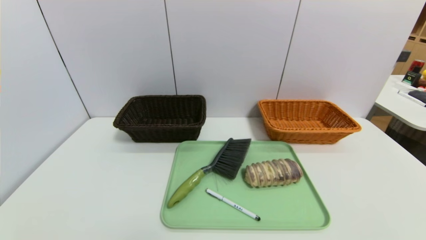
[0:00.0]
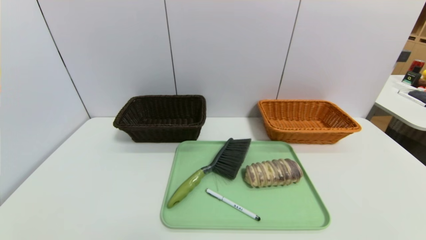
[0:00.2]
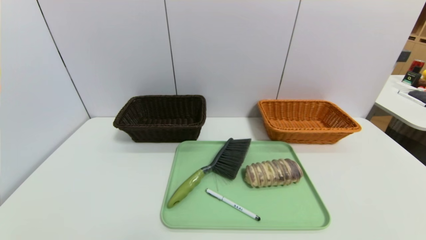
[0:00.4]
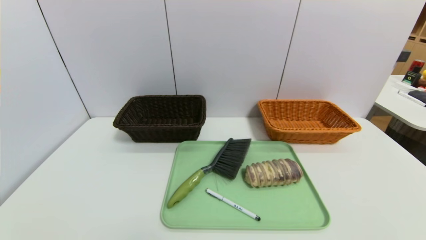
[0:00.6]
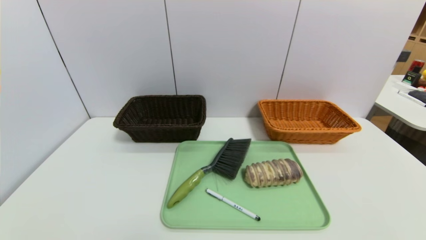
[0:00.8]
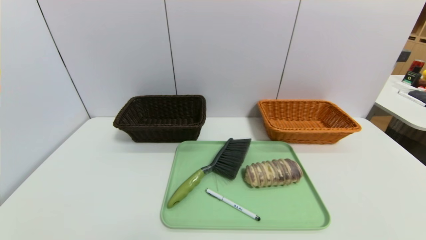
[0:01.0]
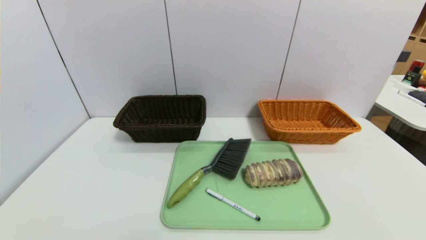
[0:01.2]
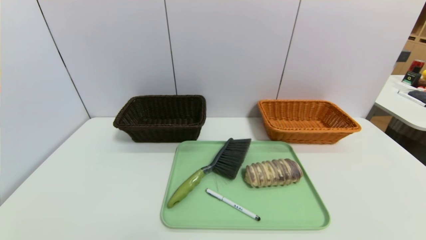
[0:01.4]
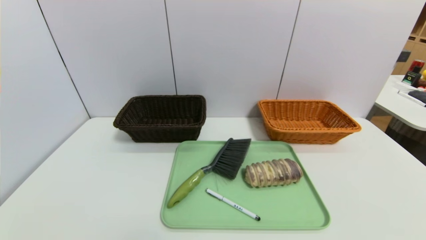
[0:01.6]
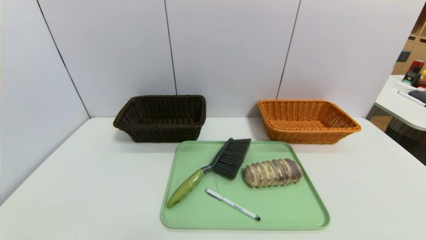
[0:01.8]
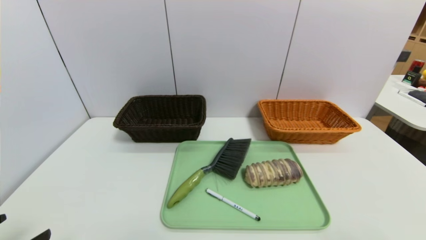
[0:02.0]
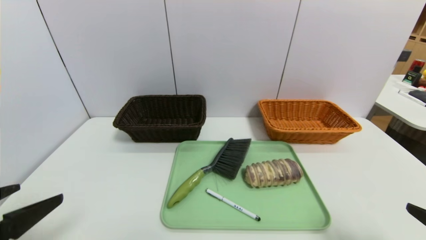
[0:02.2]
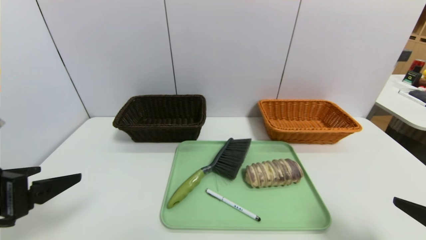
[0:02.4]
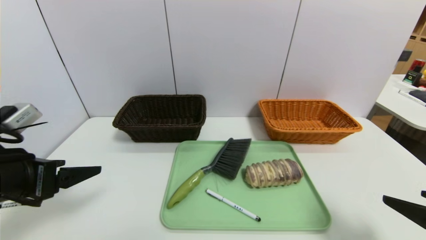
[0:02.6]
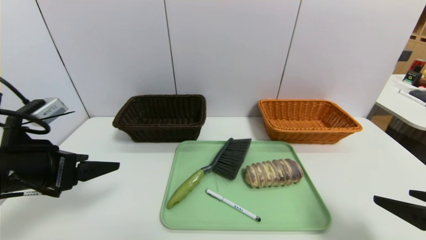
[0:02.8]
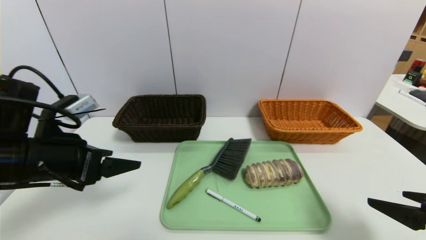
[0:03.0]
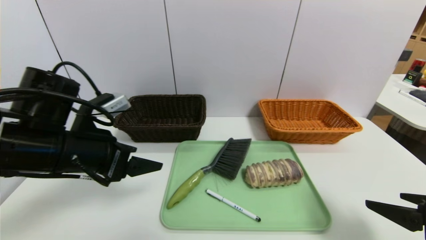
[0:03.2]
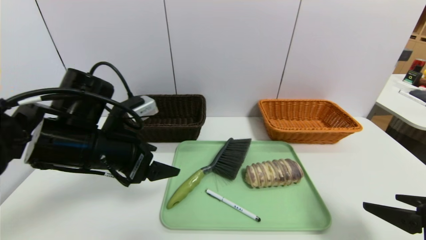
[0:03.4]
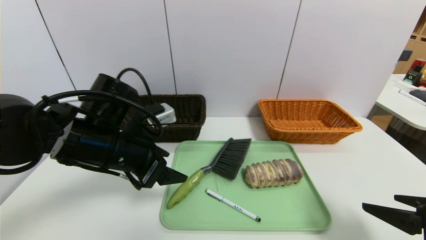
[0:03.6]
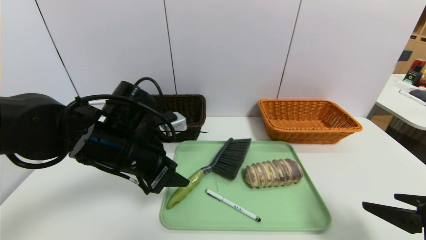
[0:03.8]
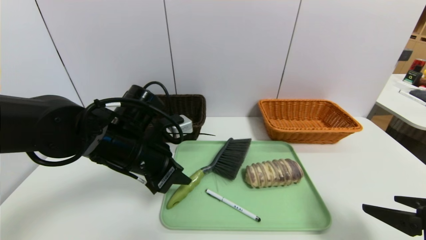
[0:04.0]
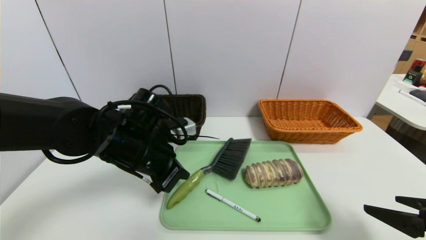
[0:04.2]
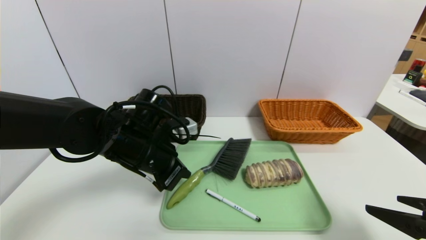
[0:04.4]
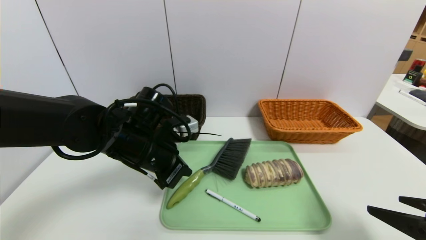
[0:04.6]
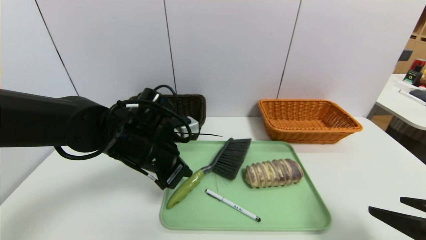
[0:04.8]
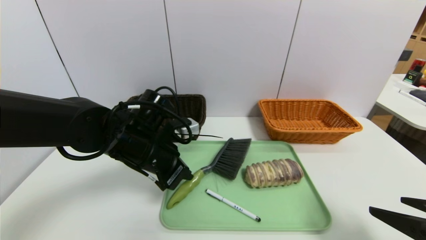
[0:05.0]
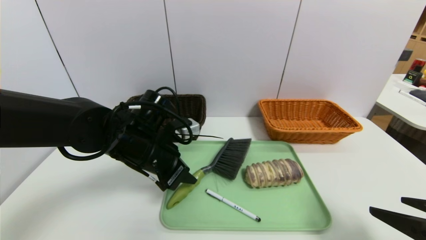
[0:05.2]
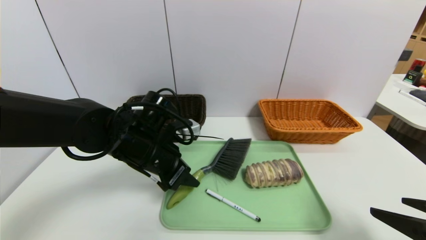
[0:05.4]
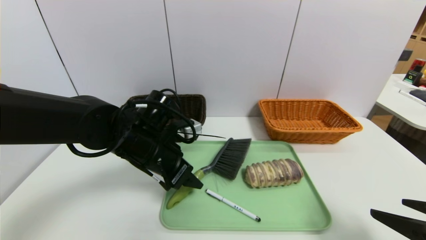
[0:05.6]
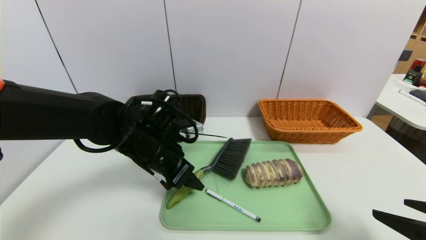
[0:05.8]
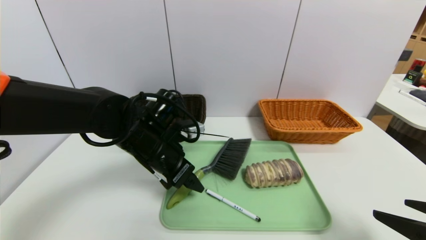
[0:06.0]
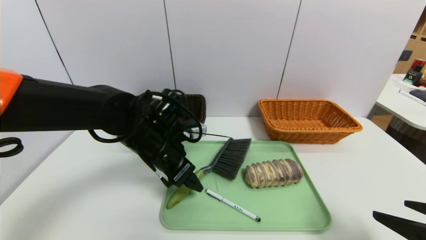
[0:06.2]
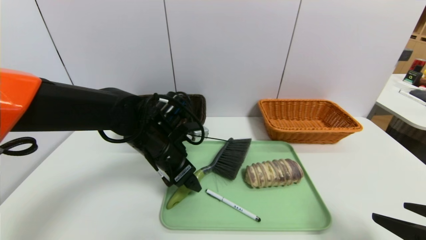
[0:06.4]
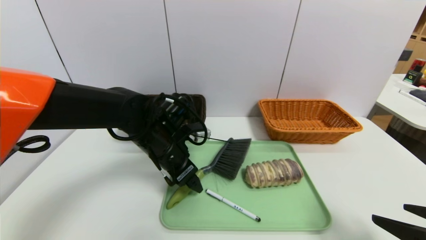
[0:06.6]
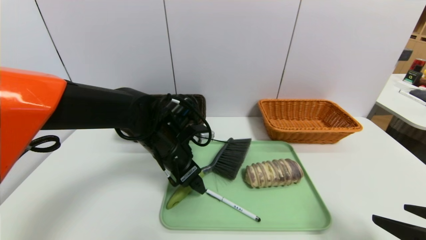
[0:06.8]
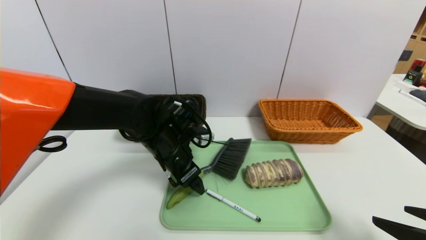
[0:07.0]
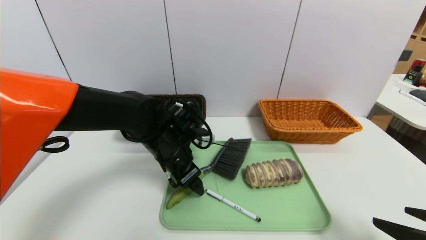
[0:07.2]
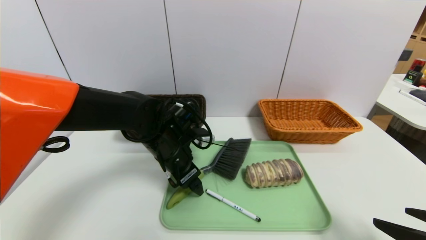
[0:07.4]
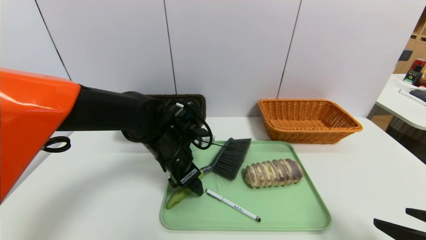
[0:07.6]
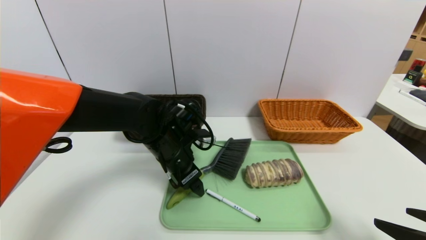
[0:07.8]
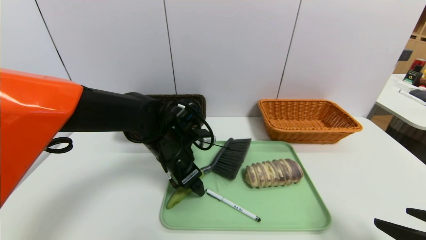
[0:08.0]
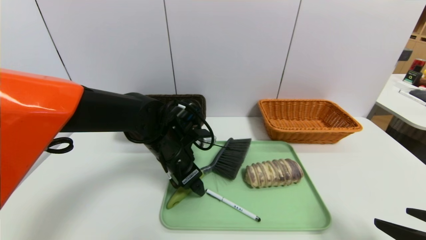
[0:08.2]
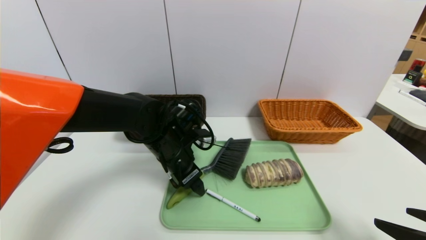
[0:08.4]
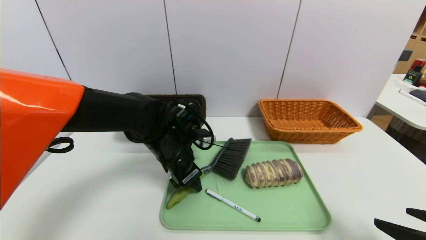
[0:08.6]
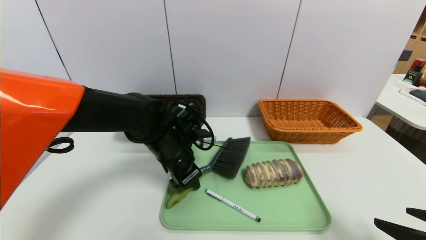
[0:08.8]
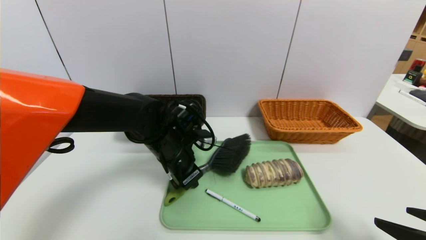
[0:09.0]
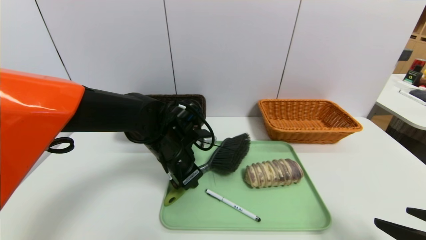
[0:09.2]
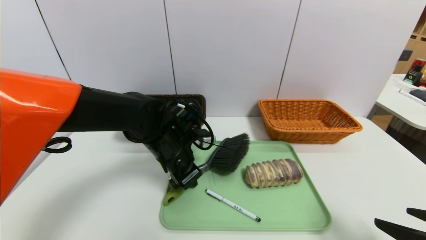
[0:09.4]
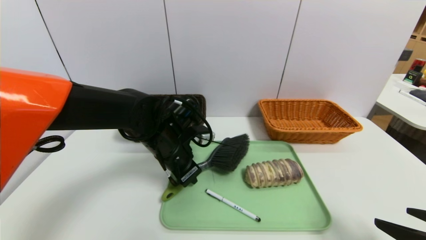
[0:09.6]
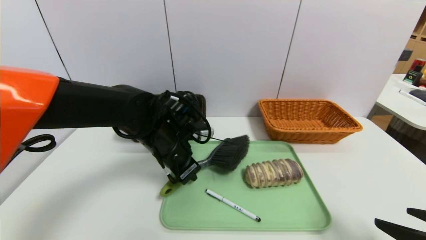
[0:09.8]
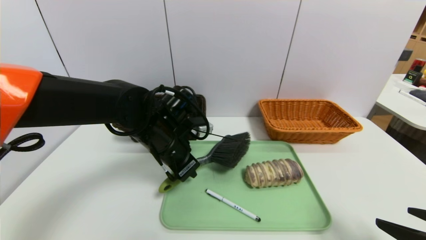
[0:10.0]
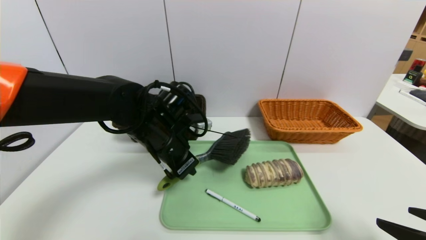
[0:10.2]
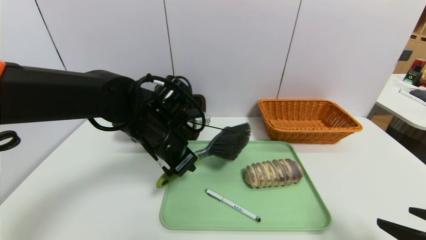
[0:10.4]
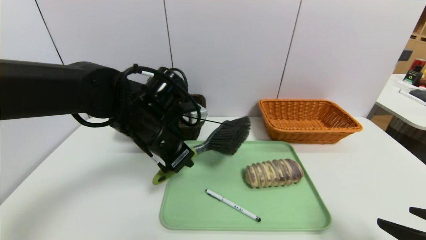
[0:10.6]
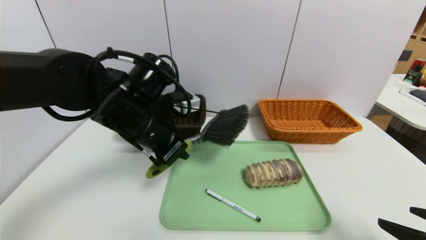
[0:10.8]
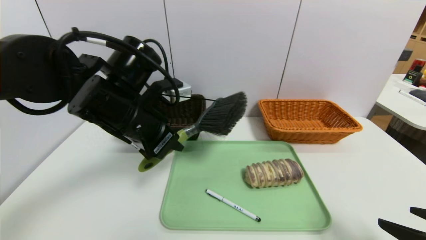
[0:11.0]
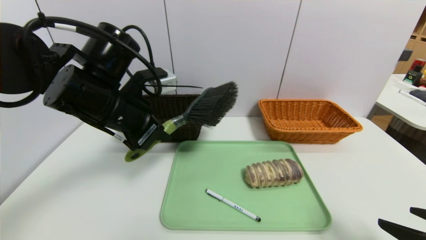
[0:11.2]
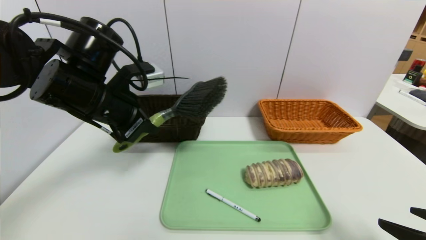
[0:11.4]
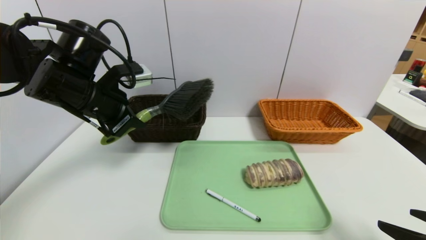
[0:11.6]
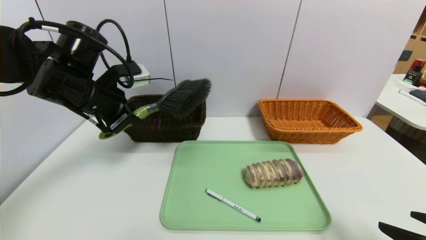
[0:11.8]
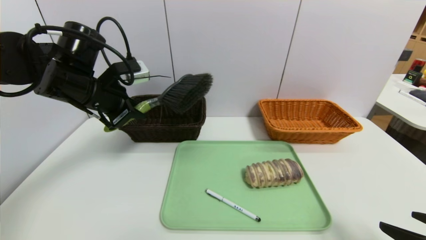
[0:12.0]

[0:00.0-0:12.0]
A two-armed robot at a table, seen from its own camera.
Task of the whole recording: place the food in the right basket with the right gripper, and place the non food items in the left basket with the left gripper.
0:01.6 to 0:03.0: The right gripper heads forward, covering about 15 cm; the left gripper travels forward and upward by some 25 cm.
0:03.0 to 0:04.4: The left gripper travels to the right and forward by some 15 cm, and closes its fingers.
0:04.4 to 0:06.0: The left gripper opens its fingers.
0:06.0 to 0:07.6: The grippers stay close to where they were, moving slightly.
0:07.6 to 0:09.0: The left gripper closes up.
0:09.0 to 0:10.4: The left gripper is displaced upward by approximately 5 cm.
0:10.4 to 0:12.0: The left gripper moves to the left and upward, approximately 15 cm.

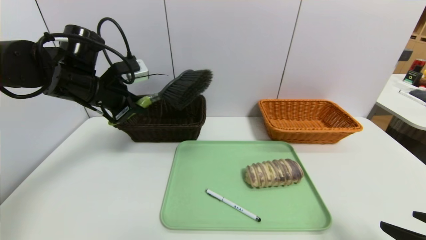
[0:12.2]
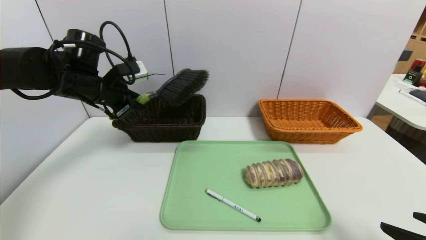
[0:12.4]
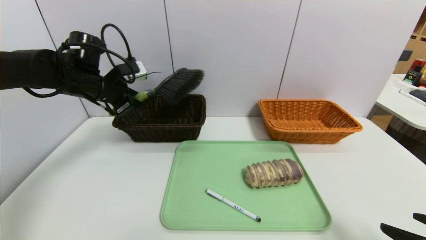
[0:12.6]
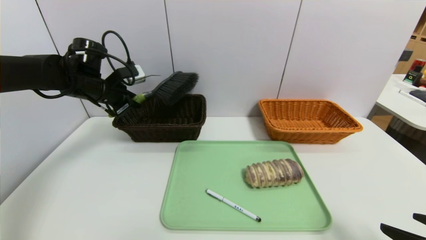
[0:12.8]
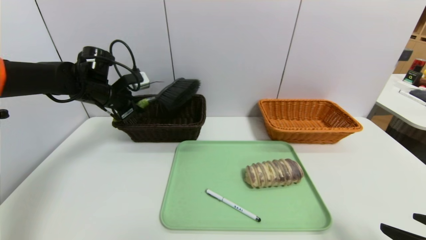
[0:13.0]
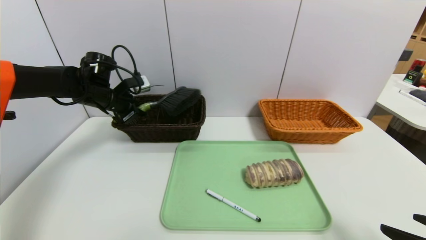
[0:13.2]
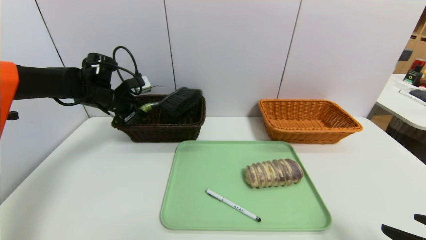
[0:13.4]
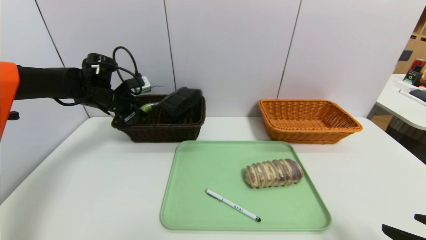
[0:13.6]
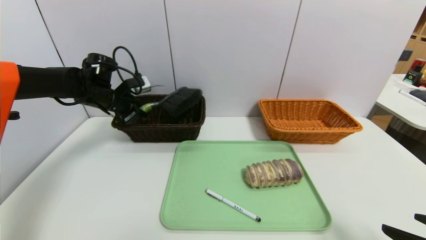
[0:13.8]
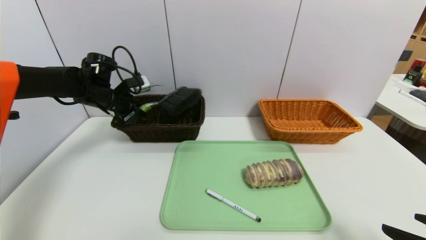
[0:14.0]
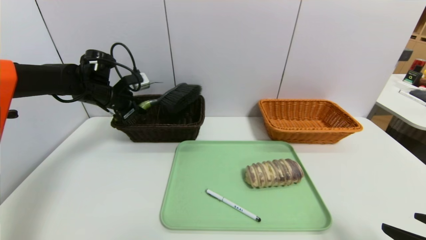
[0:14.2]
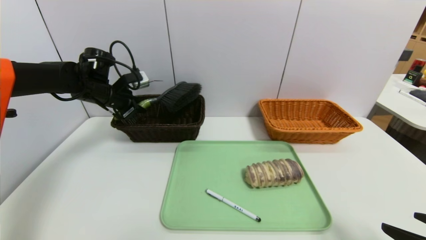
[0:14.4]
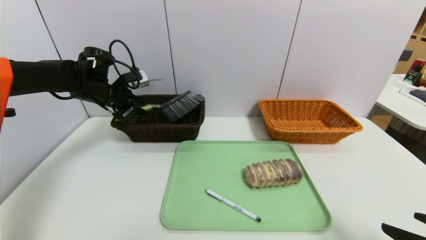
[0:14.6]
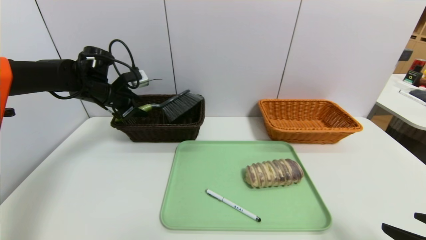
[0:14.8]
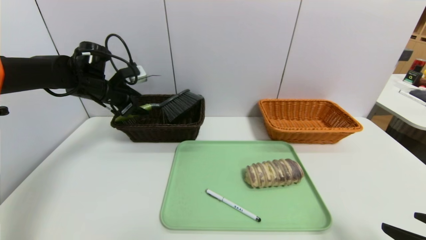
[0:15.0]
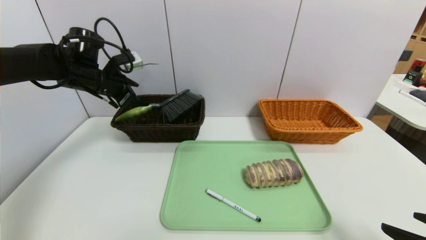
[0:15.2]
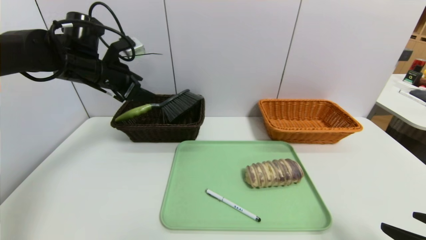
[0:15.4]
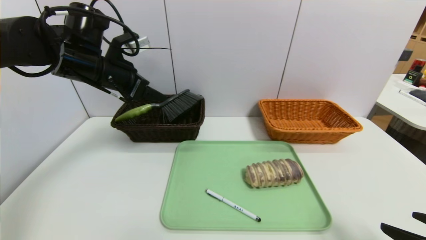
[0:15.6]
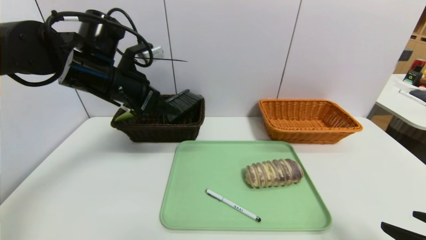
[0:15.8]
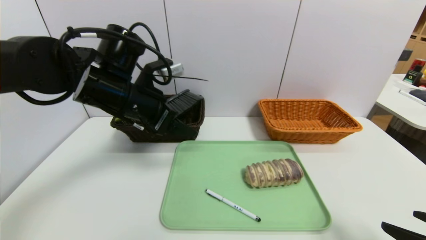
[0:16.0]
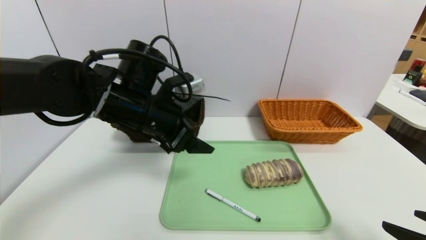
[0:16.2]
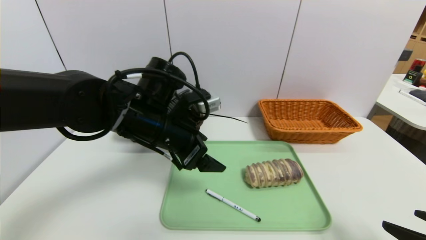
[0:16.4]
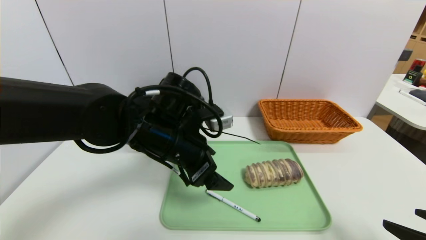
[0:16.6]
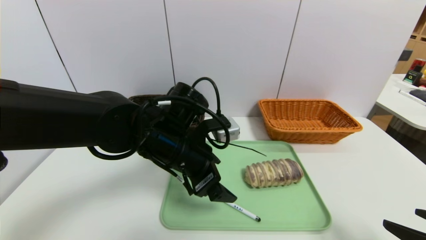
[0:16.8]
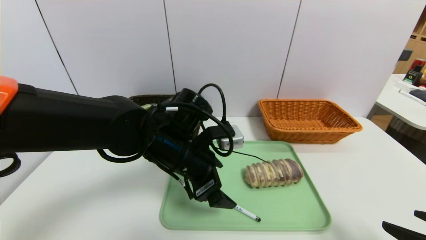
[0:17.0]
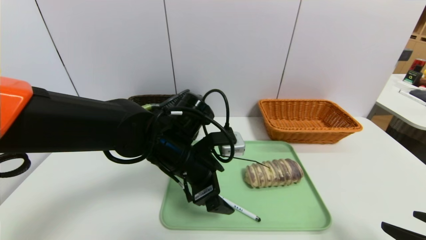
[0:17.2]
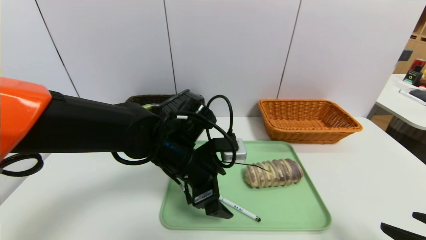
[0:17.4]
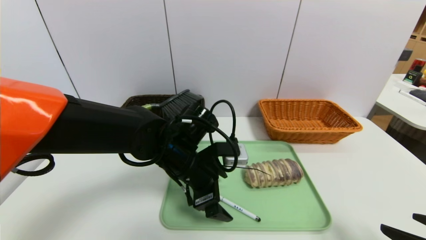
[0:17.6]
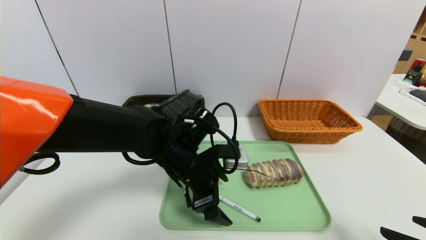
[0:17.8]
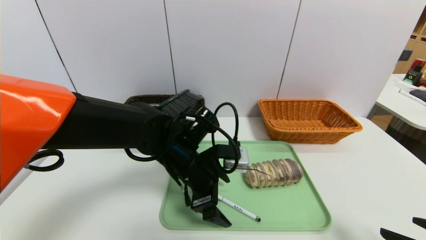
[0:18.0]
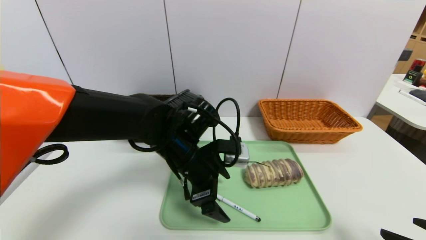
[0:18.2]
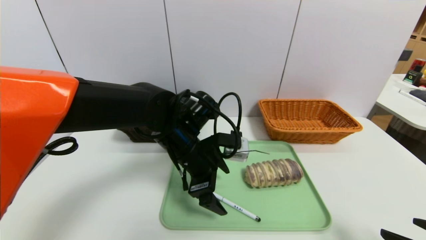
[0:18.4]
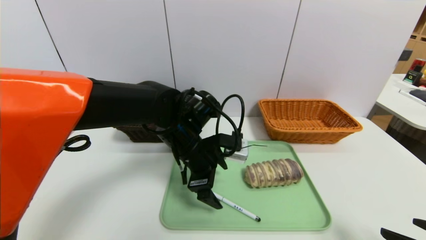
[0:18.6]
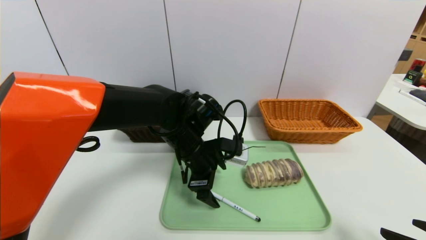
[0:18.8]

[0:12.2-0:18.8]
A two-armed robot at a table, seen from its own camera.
Task of the whole recording: place the food in the right basket with the right gripper, and place the non food items in the left basket with the left gripper.
Step, 0:12.2 to 0:15.2: Grasp the brush and put it in the left basket.
0:12.2 to 0:13.8: The left gripper is displaced forward and downward by approximately 10 cm.
0:13.8 to 0:15.4: The left gripper heads upward, covering about 10 cm, and opens up.
0:15.4 to 0:17.2: The left gripper is displaced to the right, backward and downward by roughly 25 cm.
